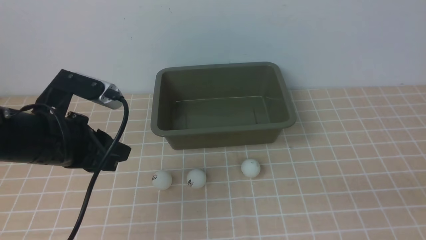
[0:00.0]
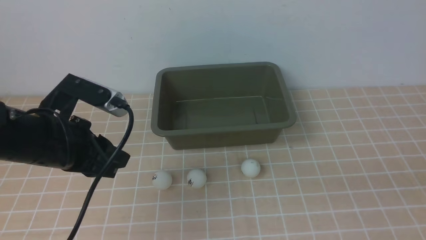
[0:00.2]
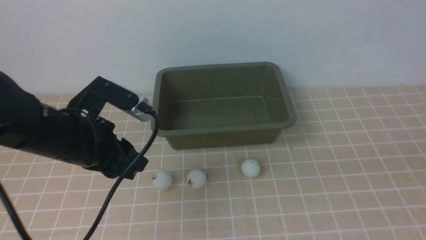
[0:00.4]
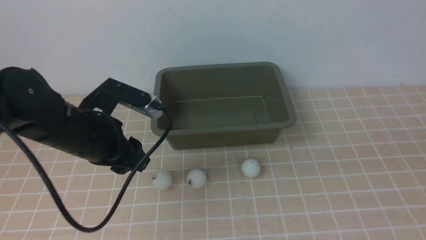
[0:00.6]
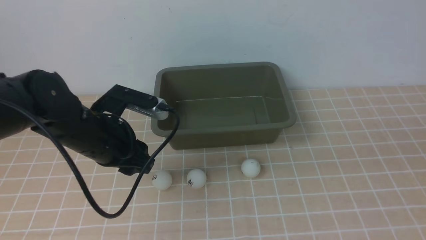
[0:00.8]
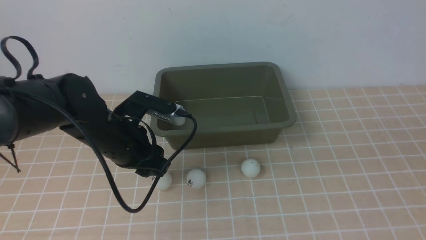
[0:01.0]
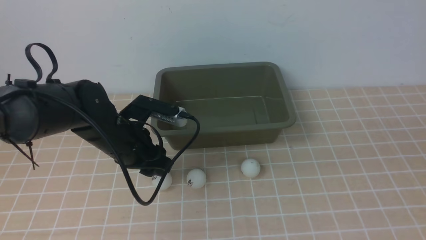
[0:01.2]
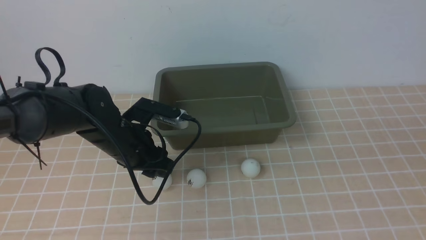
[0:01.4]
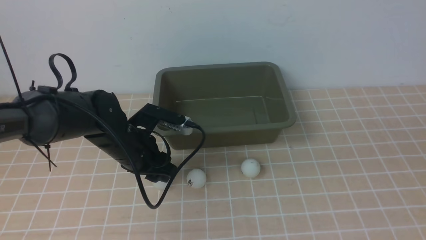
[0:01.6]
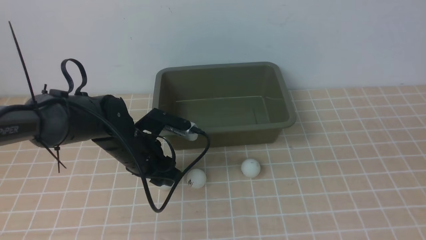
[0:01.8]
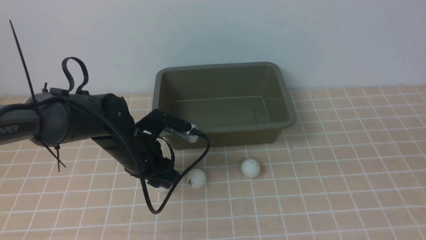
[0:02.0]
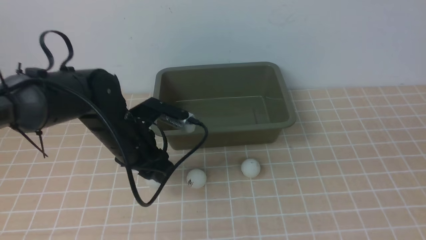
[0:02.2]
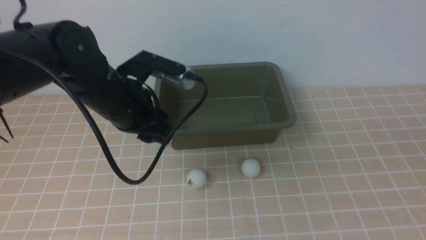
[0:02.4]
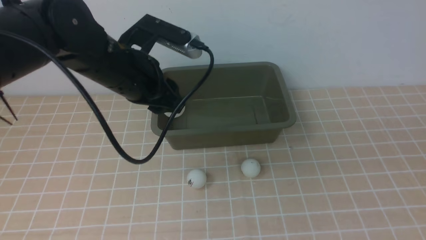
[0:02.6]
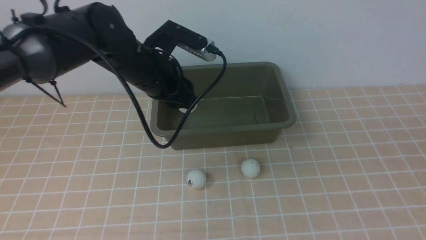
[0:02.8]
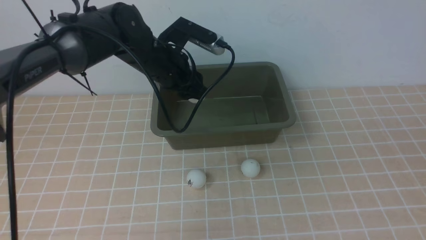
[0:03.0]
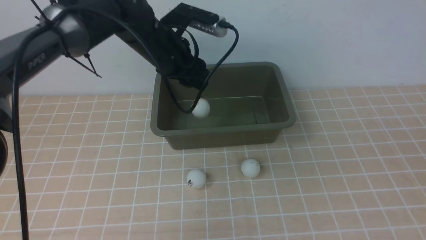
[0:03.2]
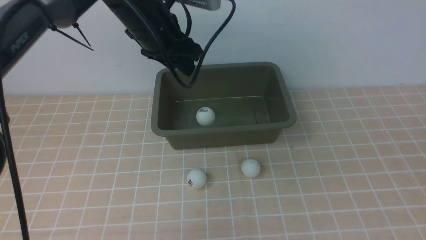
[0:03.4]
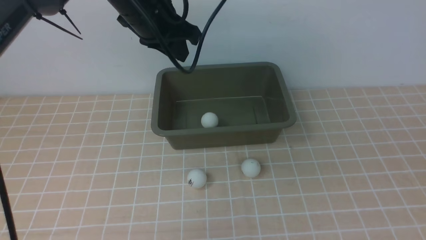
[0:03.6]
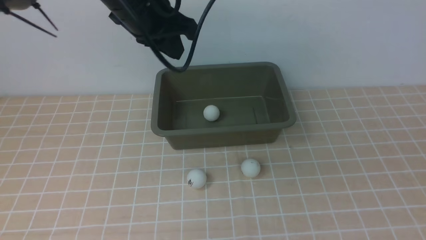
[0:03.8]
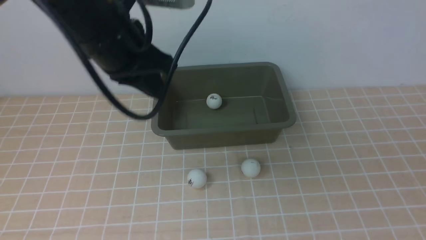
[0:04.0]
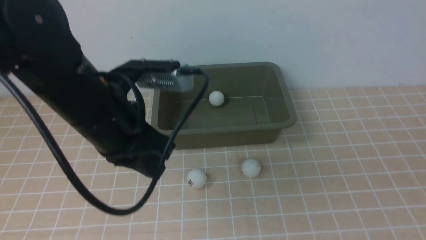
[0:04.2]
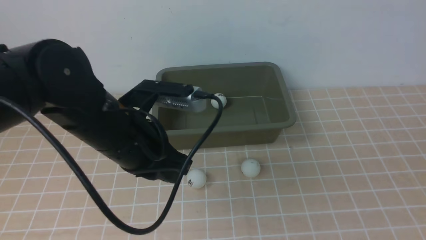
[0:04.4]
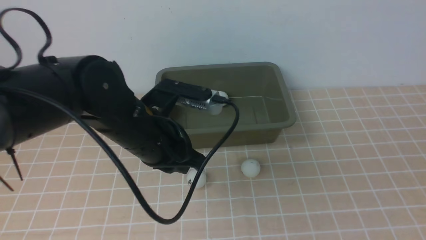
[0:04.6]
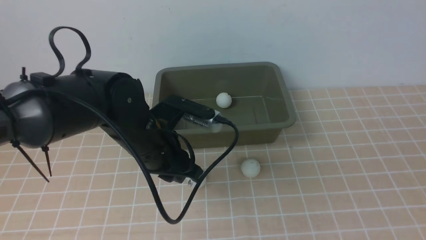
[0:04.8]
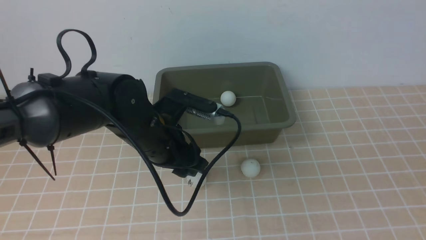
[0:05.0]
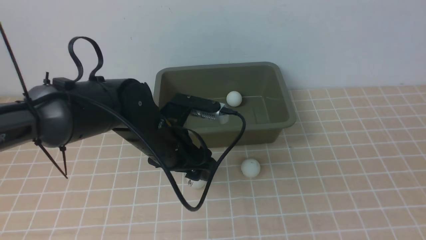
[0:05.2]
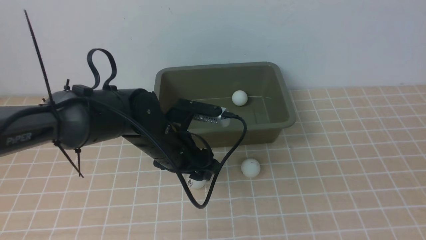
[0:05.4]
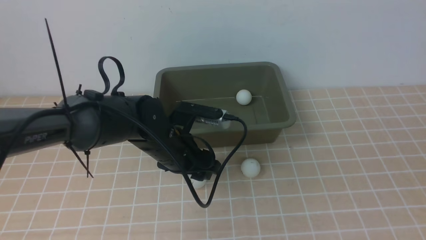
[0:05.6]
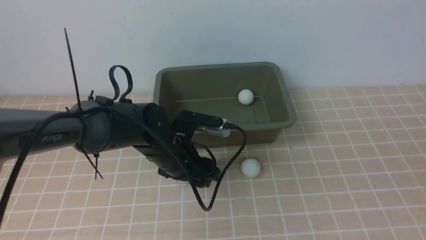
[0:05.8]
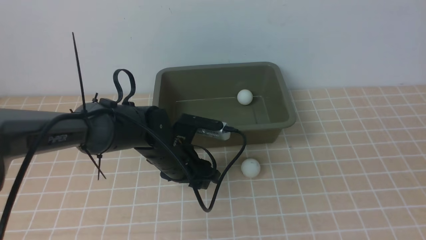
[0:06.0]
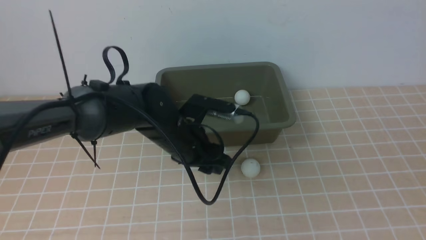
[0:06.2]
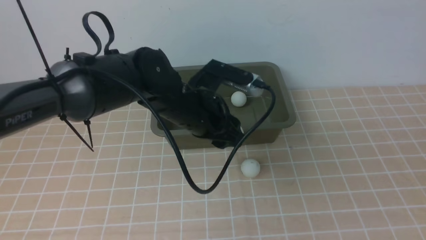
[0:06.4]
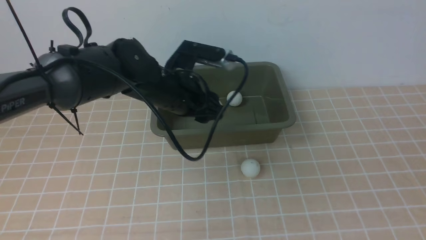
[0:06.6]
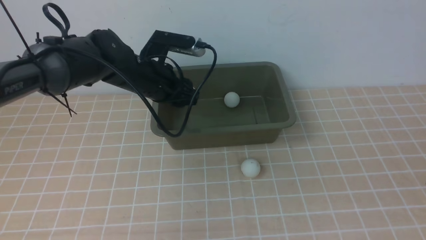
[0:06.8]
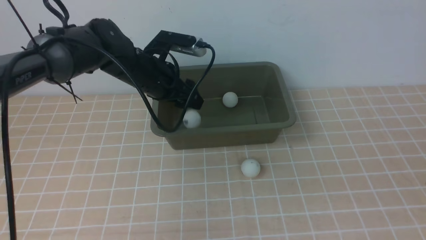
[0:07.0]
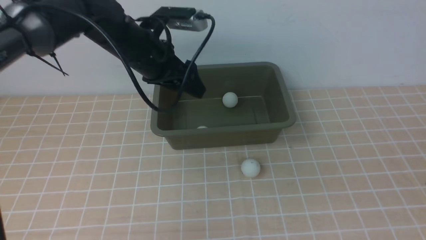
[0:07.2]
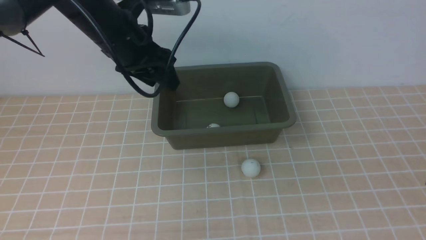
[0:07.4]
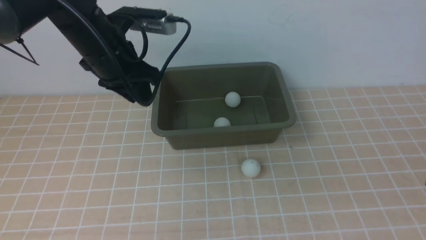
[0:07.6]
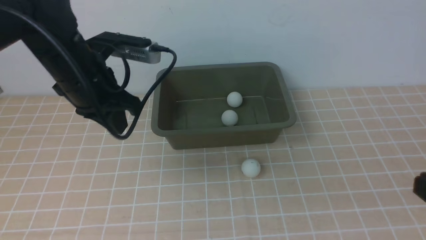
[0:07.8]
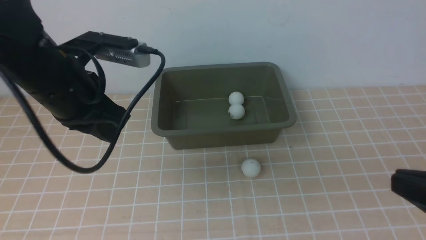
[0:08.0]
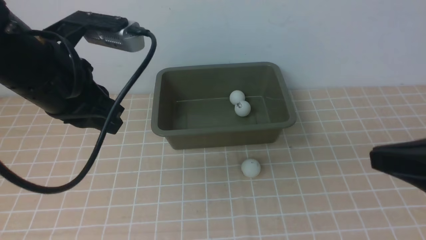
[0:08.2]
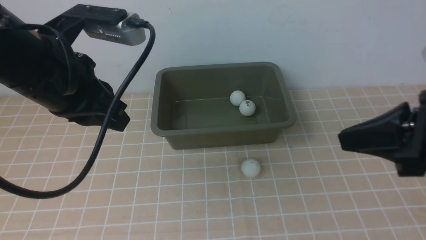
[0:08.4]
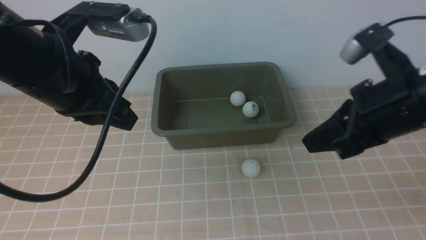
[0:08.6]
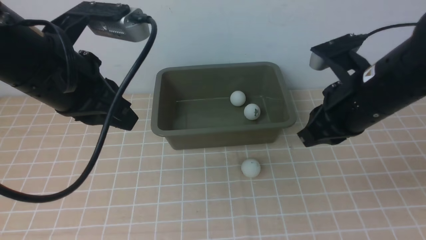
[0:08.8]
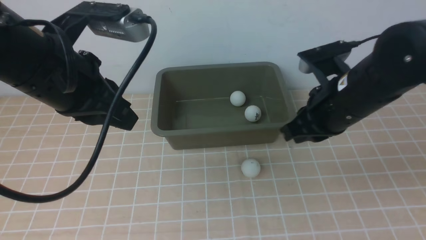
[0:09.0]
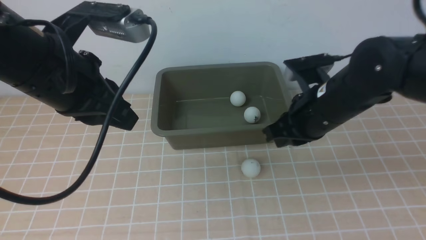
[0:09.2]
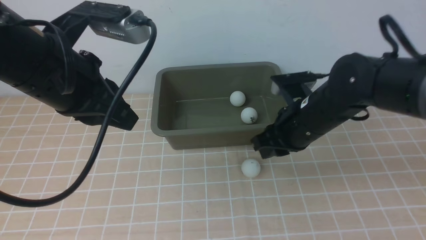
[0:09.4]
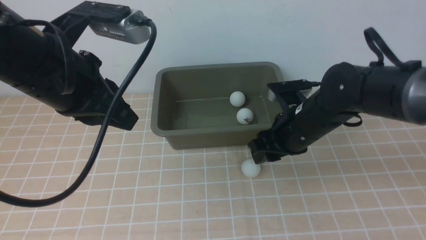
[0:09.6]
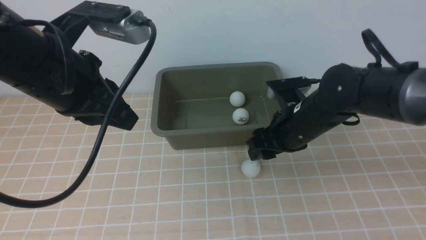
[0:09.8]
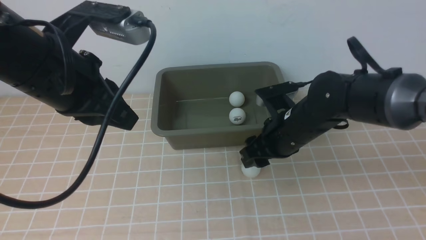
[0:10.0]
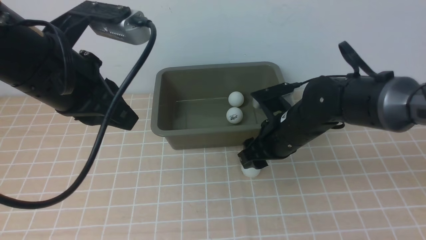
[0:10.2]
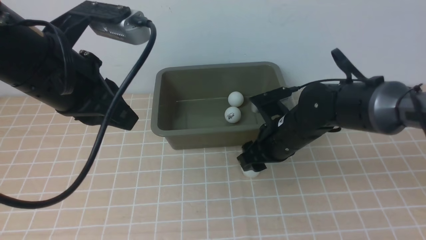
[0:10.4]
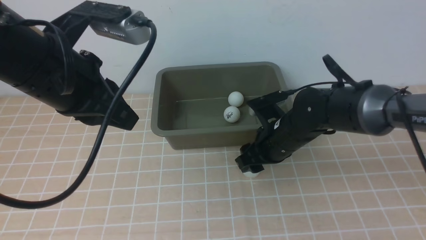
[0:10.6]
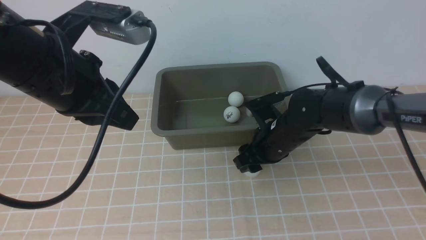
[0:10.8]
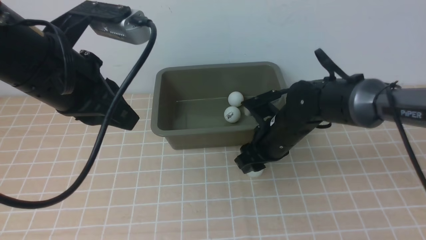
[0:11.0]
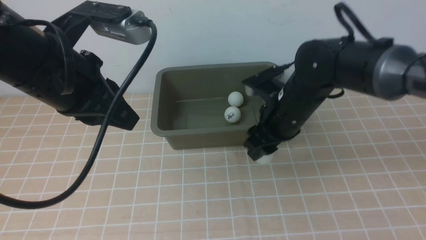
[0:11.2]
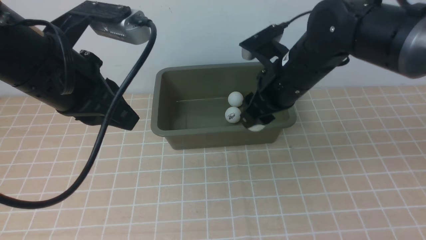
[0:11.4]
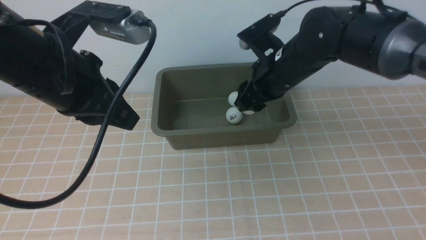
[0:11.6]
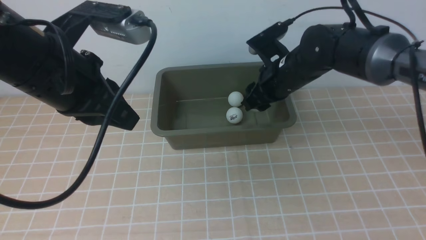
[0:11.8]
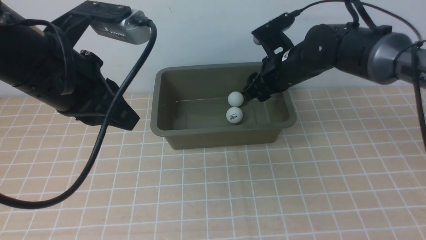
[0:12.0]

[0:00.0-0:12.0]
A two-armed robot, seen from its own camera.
Step, 0:00.0 to 0:02.2: use the left arm to clamp the table tennis ball closest to it.
Step, 0:02.4 to 0:03.4: use the left arm to put the table tennis ball into the box.
Step, 0:03.6 to 0:06.2: use the left arm to clamp the table tennis ball closest to it.
Step, 0:06.4 to 0:07.2: use the left arm to put the table tennis ball into the box.
Step, 0:07.4 to 0:11.2: use the left arm to clamp the table tennis ball closest to it.
0:00.0 to 0:01.6: The left gripper moves downward, forward and to the right, approximately 15 cm, while the right gripper is displaced upward by some 5 cm.
0:01.6 to 0:03.0: The left gripper travels upward and forward by about 15 cm.
0:03.0 to 0:04.4: The left gripper heads backward, covering approximately 15 cm, and closes.
0:04.4 to 0:06.0: The left gripper is displaced downward and forward by roughly 15 cm, and opens up.
0:06.0 to 0:07.6: The left gripper is displaced upward and to the left by approximately 20 cm, and closes up.
0:07.6 to 0:09.0: The left gripper is displaced backward and upward by roughly 10 cm, and closes up, while the right gripper is displaced forward and to the left by about 25 cm.
0:09.0 to 0:10.4: The right gripper shifts roughly 10 cm downward and to the left, and opens up.
0:10.4 to 0:12.0: The right gripper goes about 10 cm forward and upward.

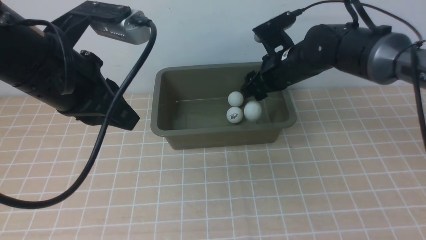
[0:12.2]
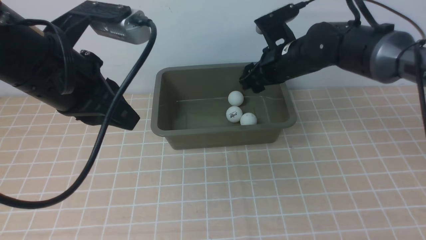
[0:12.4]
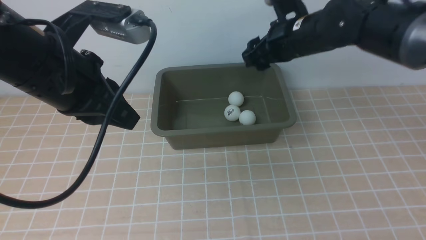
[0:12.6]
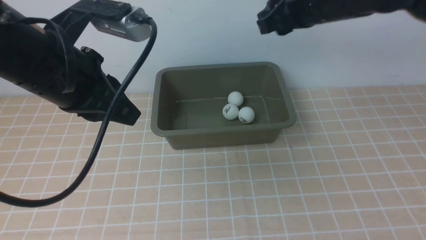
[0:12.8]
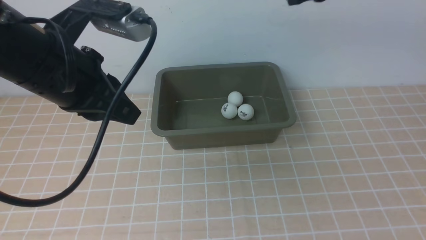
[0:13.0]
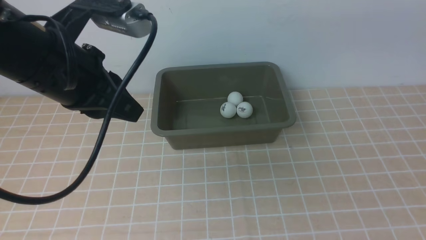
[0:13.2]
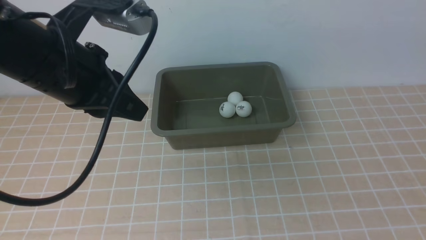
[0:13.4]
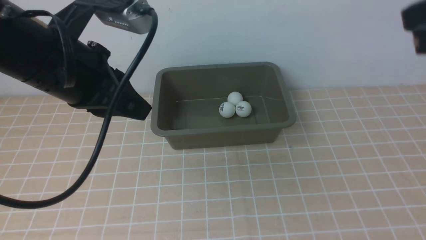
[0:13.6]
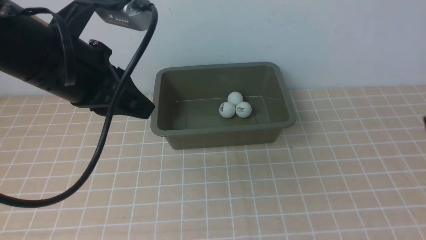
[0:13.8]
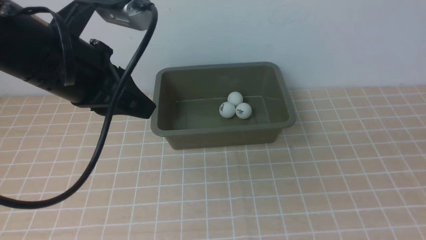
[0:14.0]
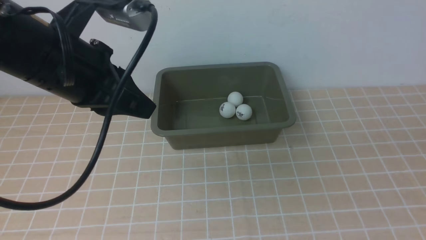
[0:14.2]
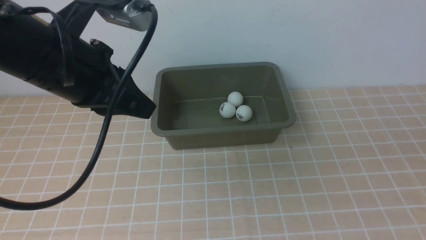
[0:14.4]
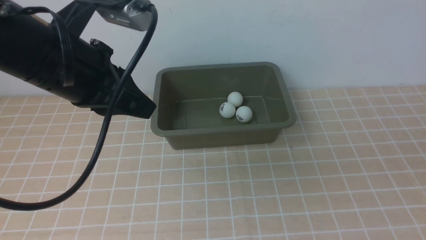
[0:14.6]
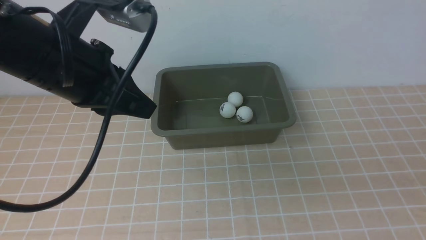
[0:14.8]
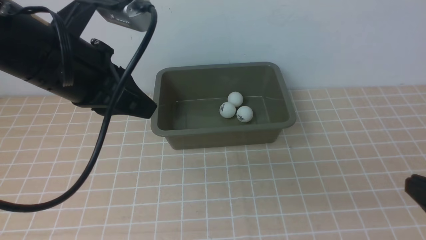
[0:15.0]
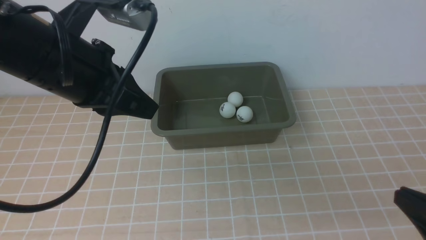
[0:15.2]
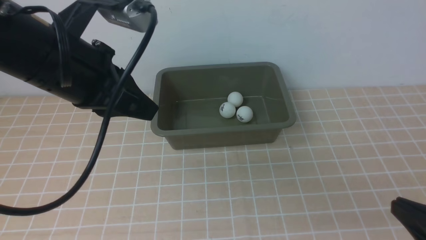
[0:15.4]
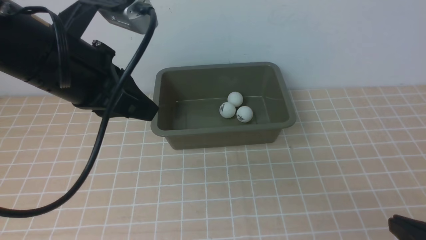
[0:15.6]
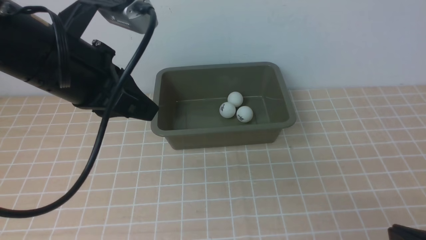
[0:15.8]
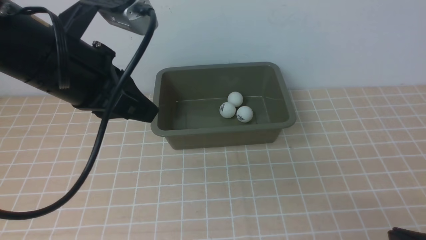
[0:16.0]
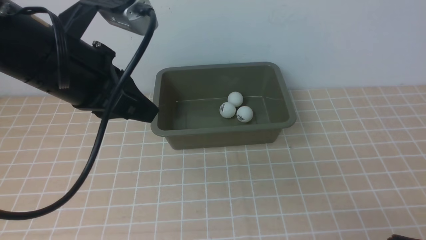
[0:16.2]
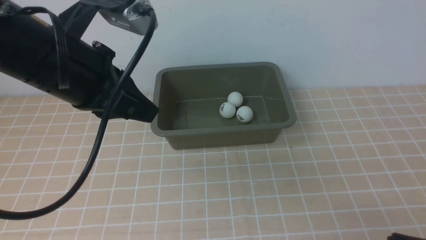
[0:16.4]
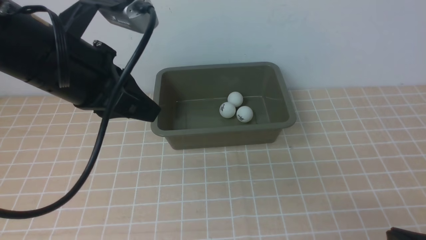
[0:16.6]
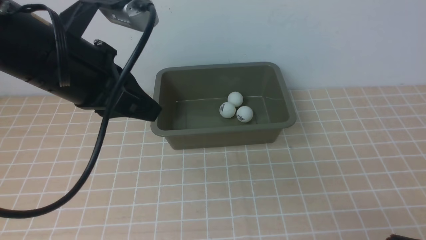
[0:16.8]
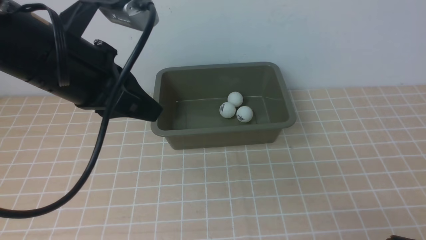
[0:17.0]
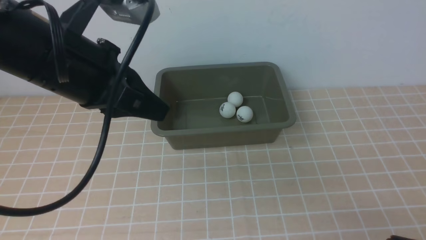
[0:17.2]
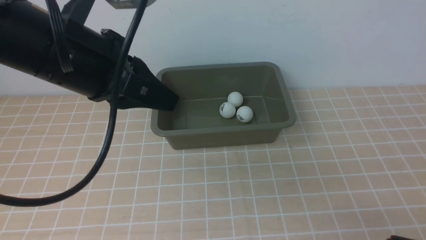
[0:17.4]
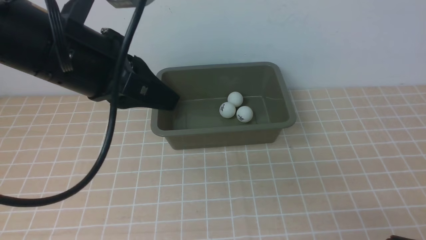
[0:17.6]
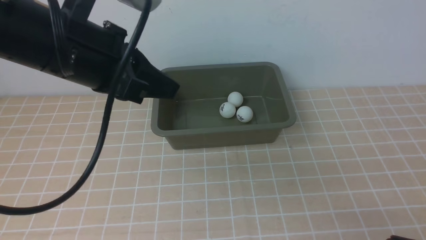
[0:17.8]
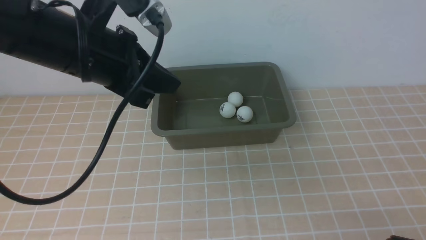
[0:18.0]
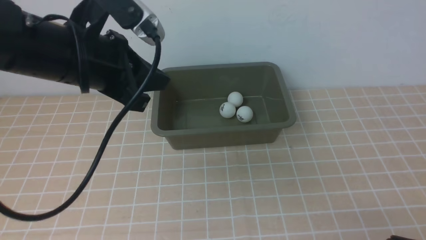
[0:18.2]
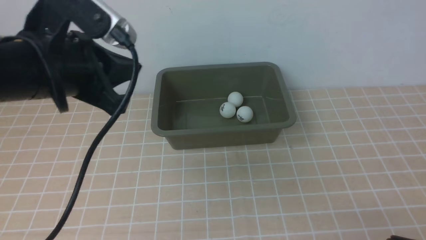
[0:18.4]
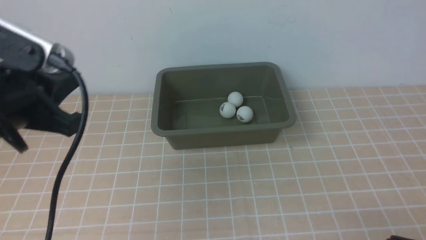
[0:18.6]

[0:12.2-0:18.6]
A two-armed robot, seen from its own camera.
0:12.2 to 0:13.8: The right gripper is displaced backward, to the right and upward by about 35 cm, and closes.
0:13.8 to 0:15.4: The right gripper travels downward and backward by approximately 15 cm.
0:15.4 to 0:17.0: The grippers move only a little.
0:17.0 to 0:18.6: The left gripper shifts approximately 10 cm to the left and backward.
